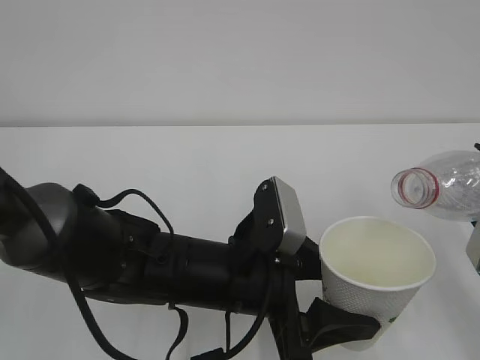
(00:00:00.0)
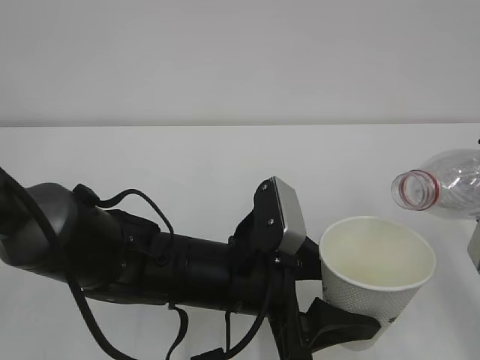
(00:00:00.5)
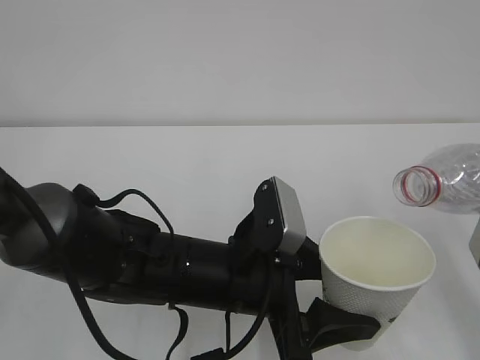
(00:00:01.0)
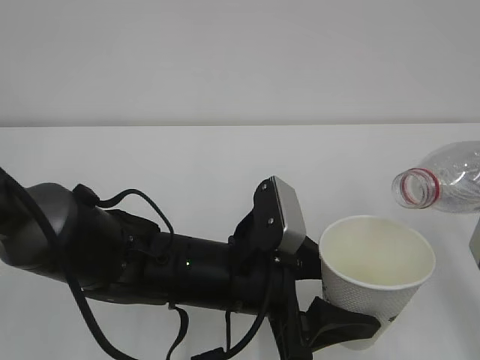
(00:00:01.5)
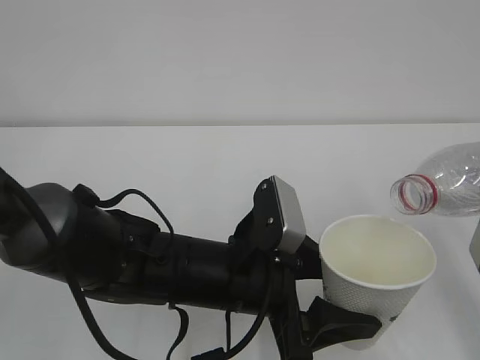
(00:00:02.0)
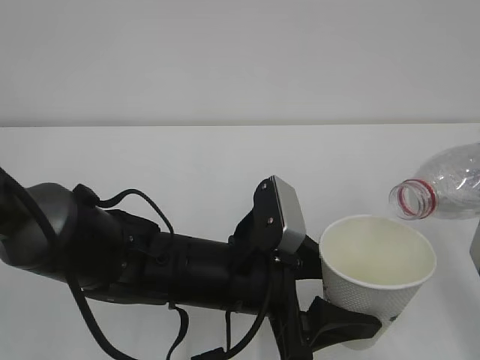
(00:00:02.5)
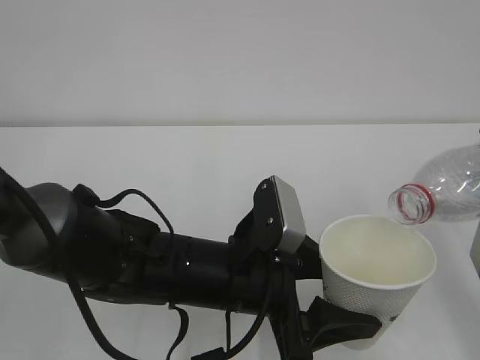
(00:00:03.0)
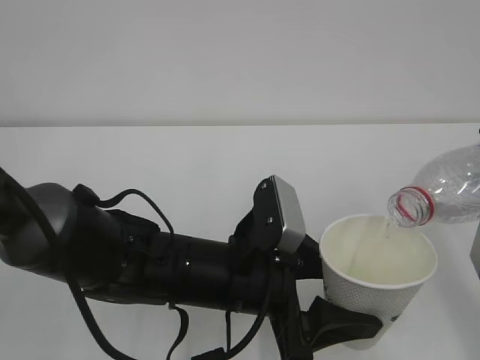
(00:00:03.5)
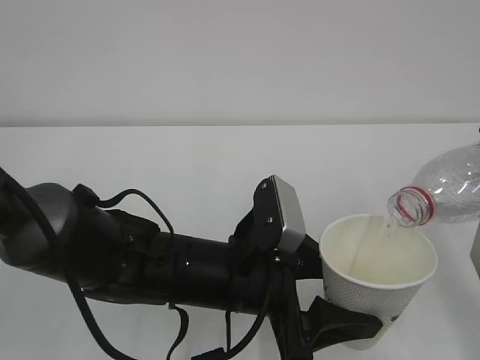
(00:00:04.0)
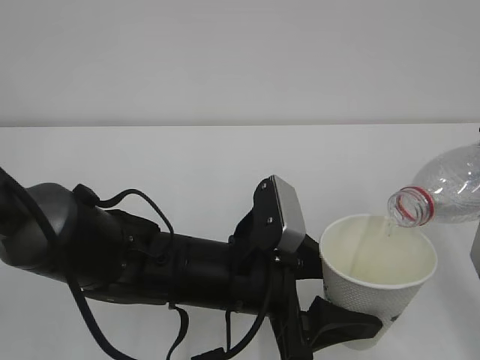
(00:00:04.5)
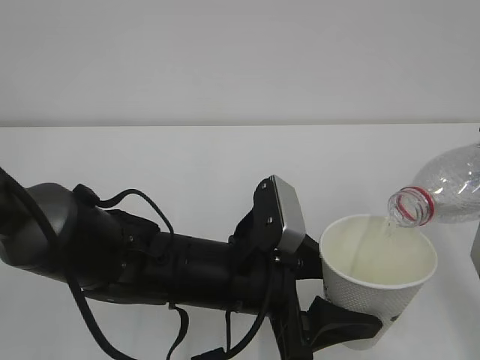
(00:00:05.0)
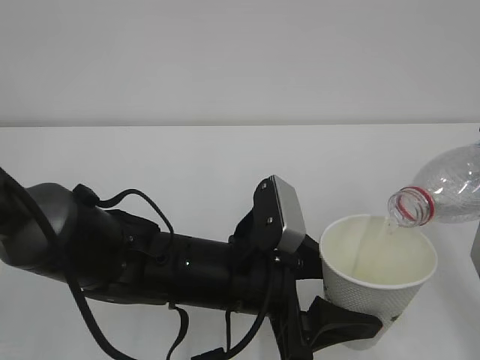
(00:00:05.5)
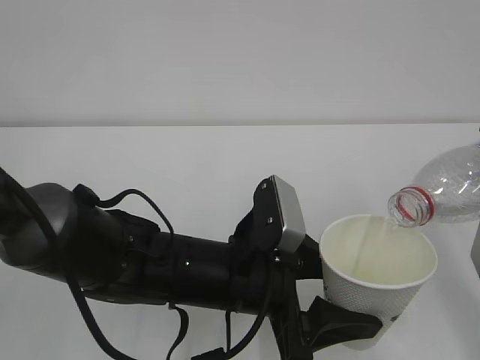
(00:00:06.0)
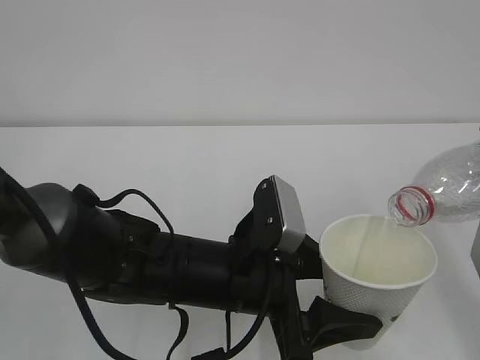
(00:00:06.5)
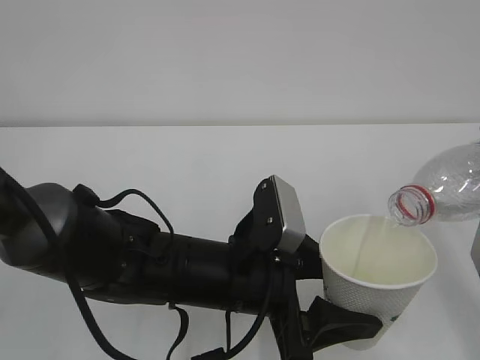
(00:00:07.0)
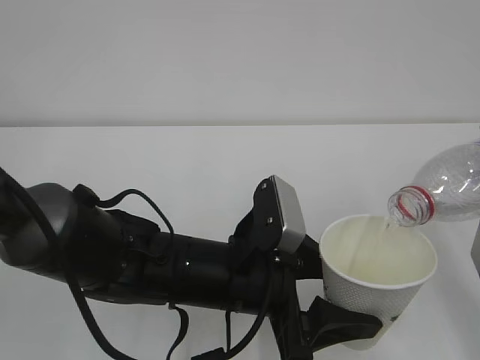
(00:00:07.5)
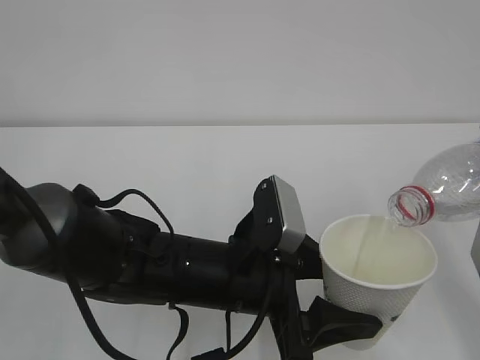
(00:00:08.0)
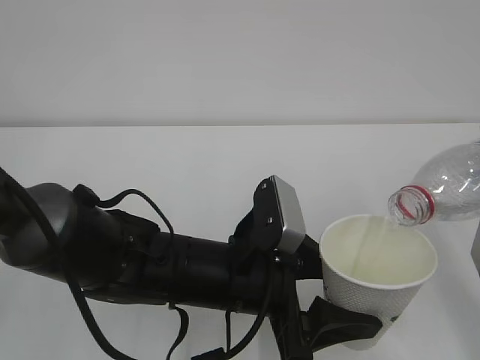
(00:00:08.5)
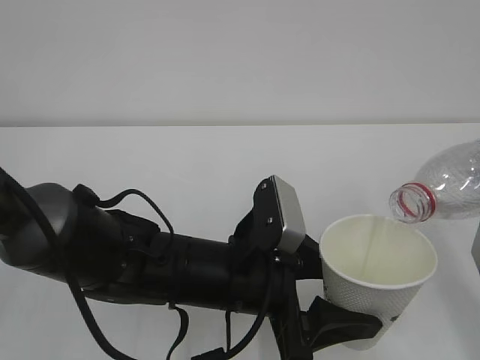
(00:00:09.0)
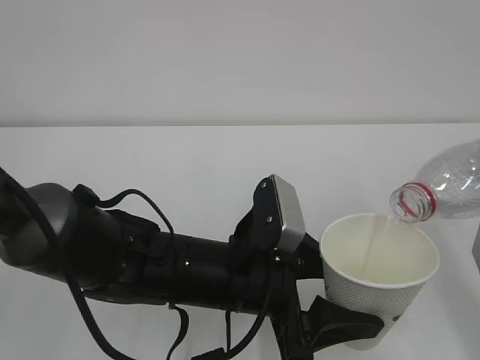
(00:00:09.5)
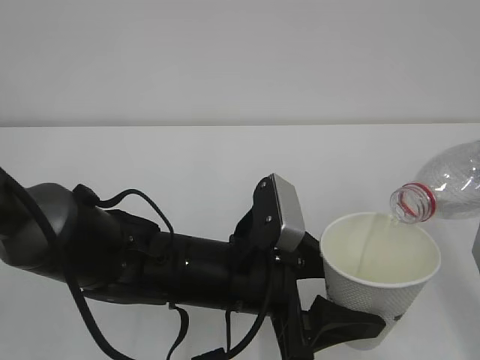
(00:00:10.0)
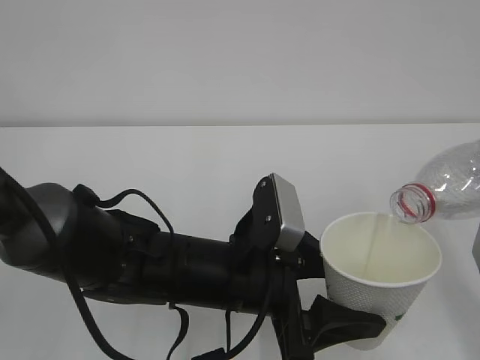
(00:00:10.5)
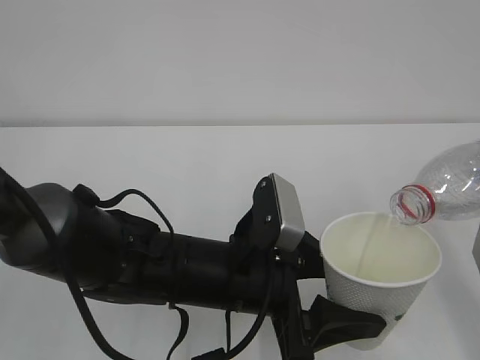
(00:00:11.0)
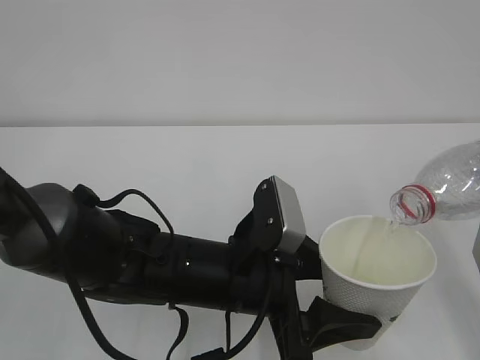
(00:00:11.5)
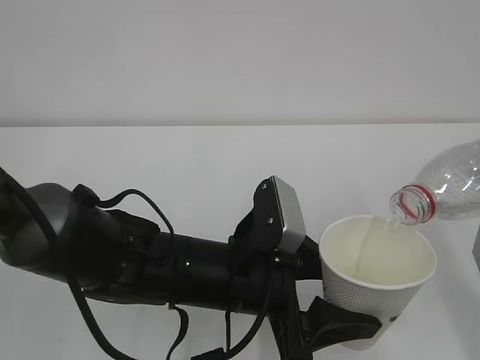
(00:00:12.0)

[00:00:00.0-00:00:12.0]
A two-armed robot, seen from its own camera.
00:00:00.0 to 00:00:04.0: The grippers stay close to where they were, moving slightly.
00:00:04.0 to 00:00:12.0: Both grippers stay put.

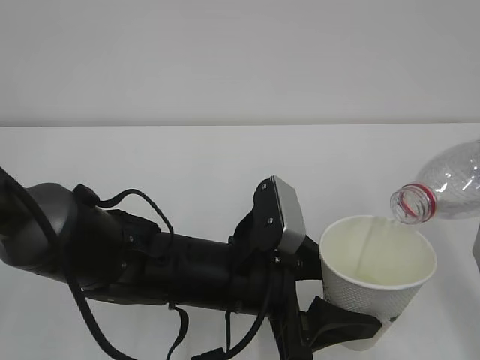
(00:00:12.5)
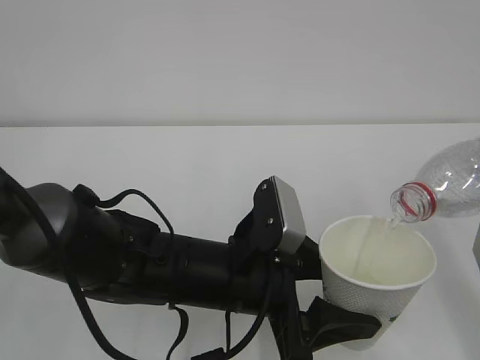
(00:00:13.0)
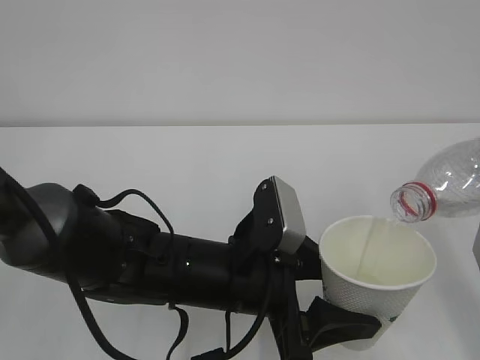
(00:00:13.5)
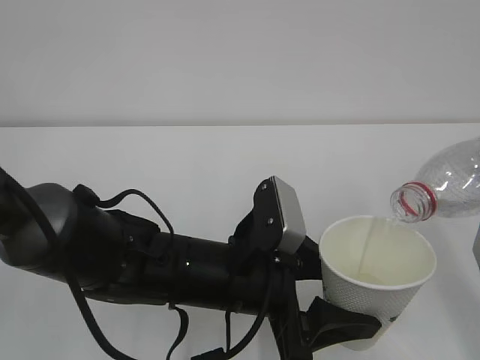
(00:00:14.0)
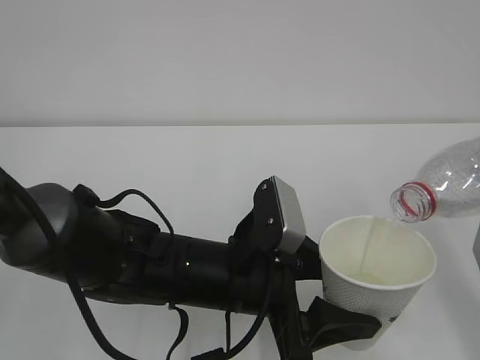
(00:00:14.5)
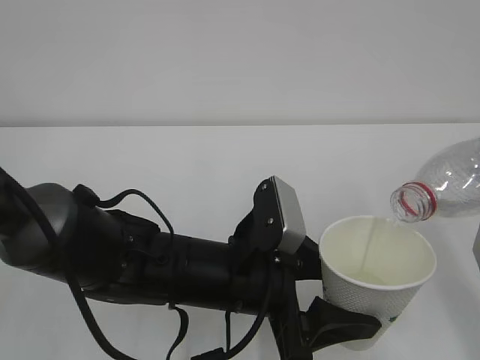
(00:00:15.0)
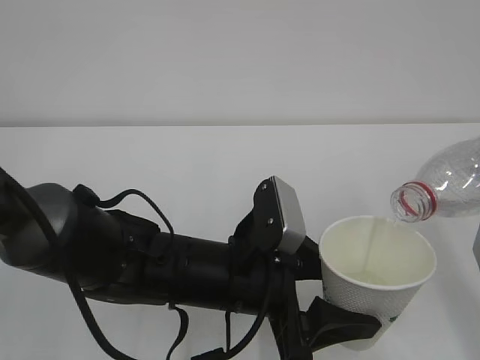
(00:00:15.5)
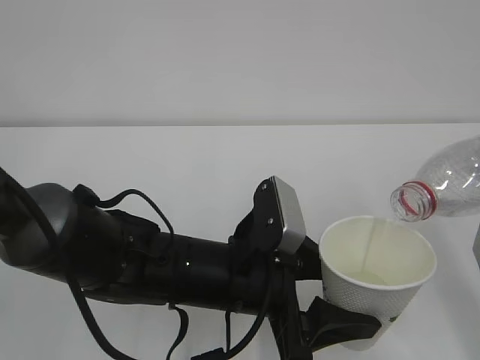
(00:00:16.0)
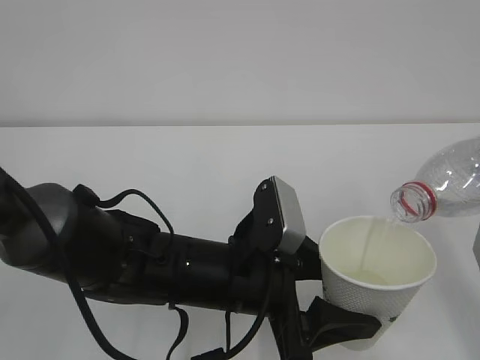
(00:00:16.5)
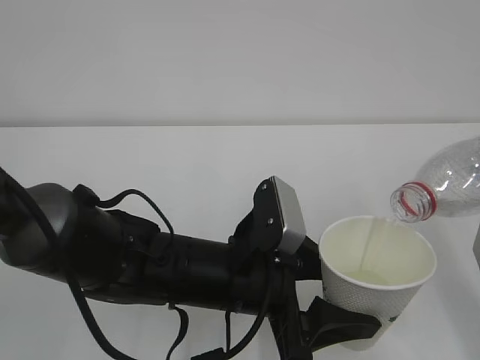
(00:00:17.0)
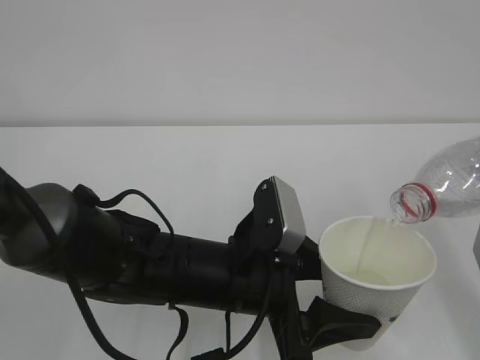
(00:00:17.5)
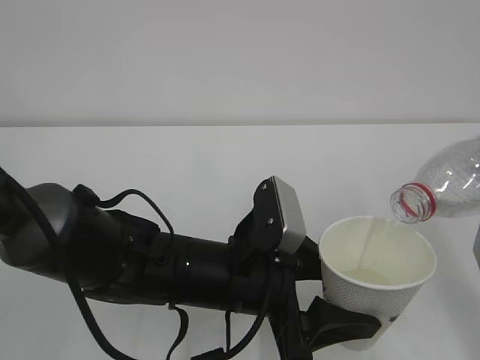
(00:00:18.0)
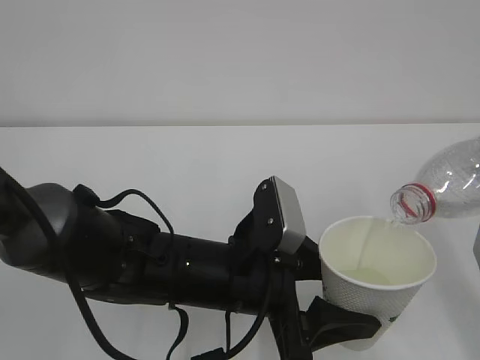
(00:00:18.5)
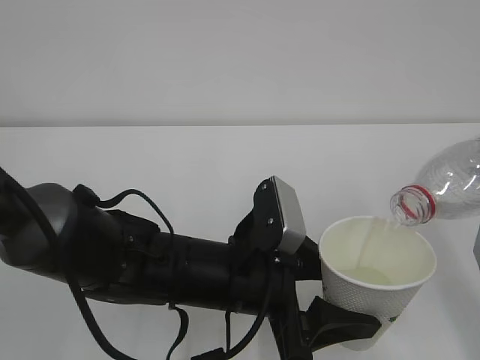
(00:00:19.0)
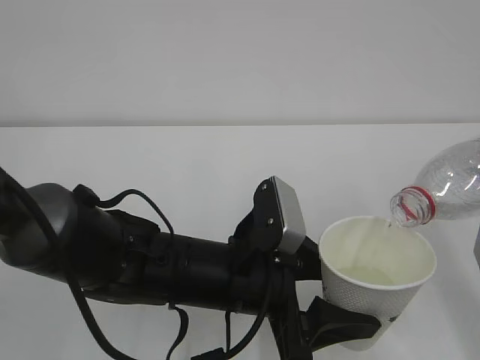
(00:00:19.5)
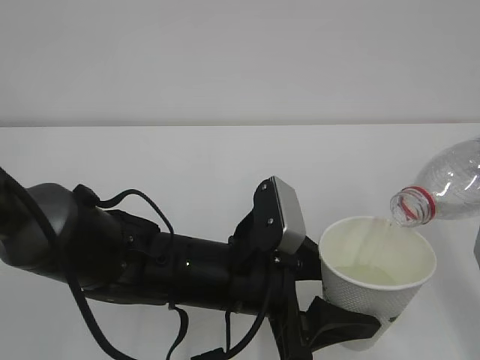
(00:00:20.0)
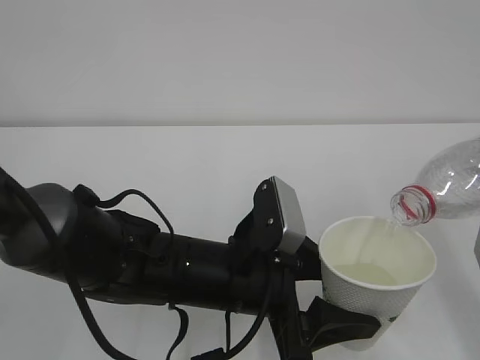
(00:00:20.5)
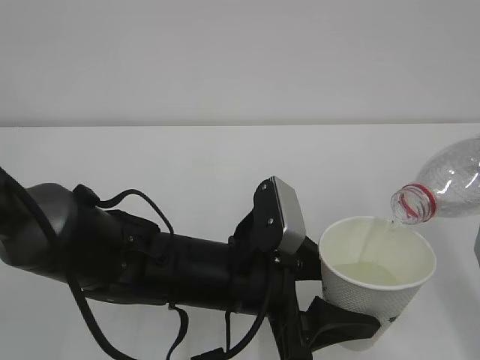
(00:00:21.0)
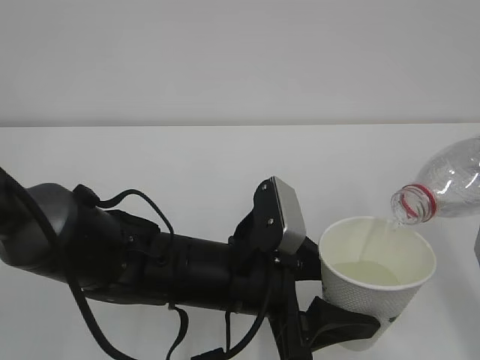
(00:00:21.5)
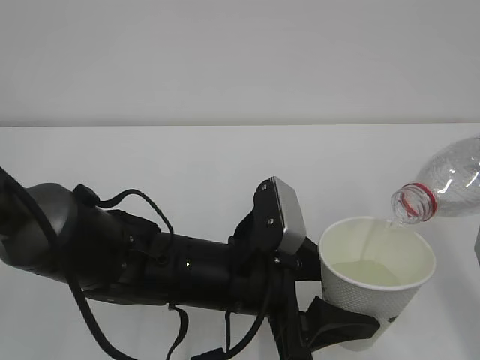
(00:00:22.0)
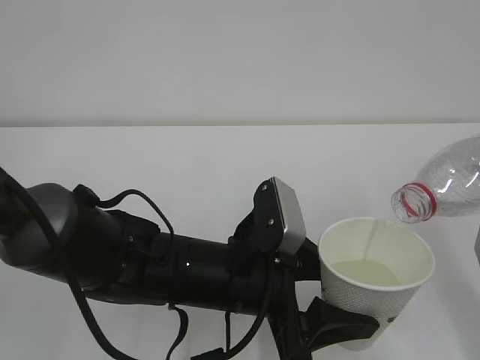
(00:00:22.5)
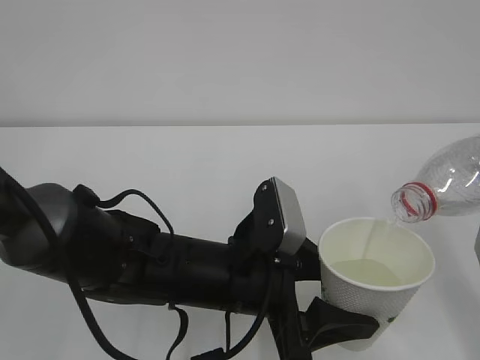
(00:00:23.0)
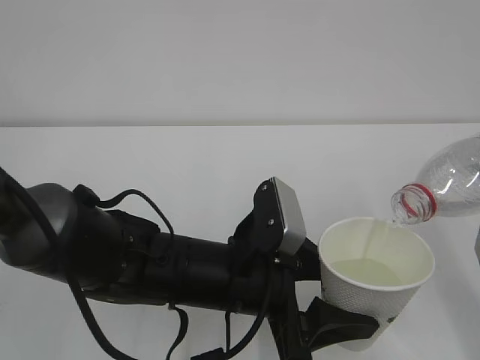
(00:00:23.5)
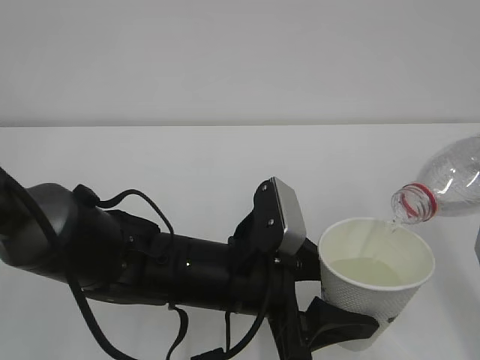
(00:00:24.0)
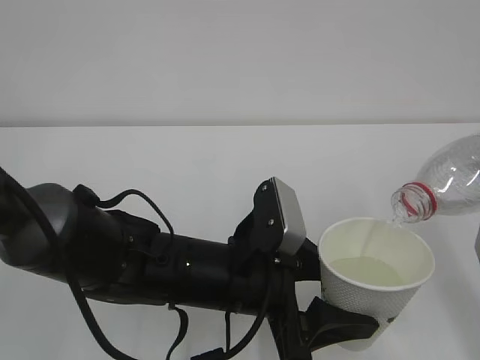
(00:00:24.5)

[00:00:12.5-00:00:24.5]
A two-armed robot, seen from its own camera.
00:00:12.5 to 00:00:24.5: Both grippers stay about where they are.

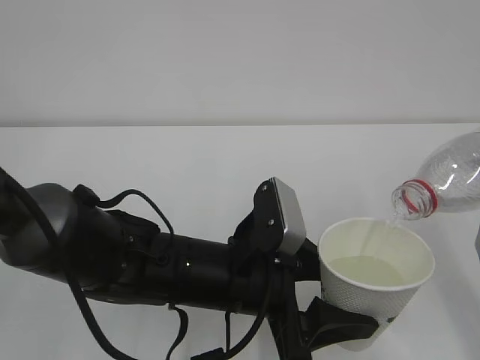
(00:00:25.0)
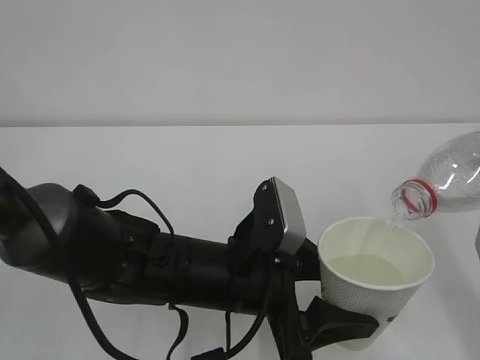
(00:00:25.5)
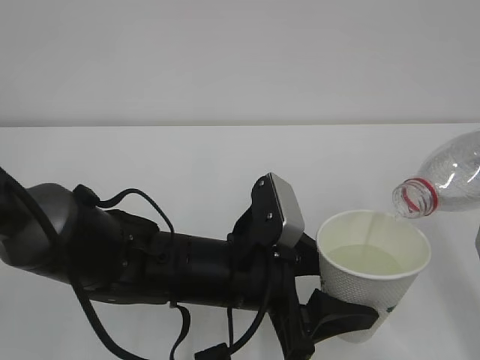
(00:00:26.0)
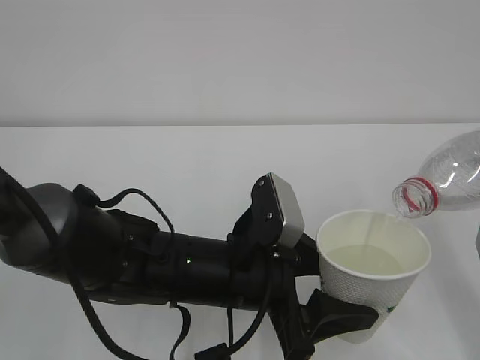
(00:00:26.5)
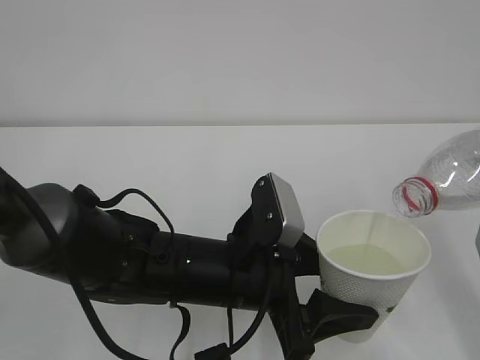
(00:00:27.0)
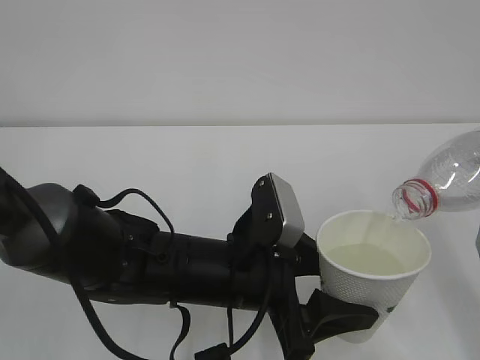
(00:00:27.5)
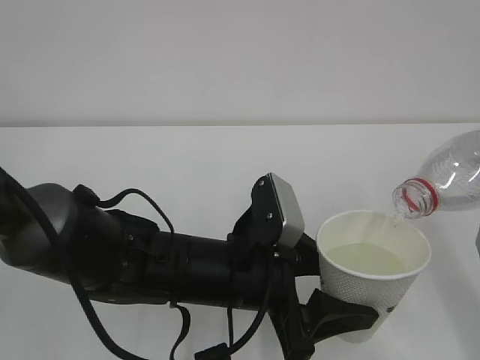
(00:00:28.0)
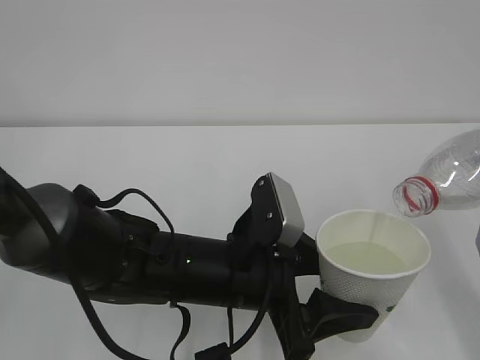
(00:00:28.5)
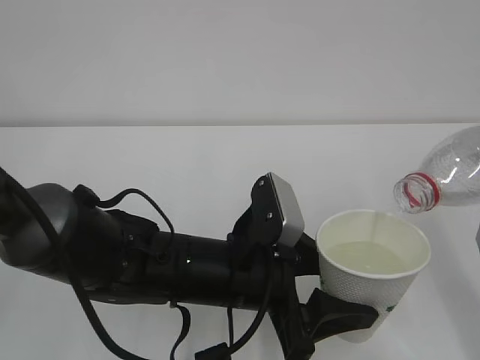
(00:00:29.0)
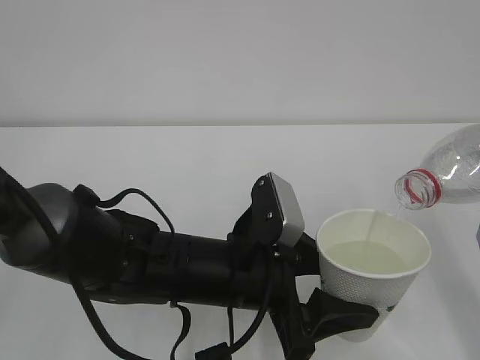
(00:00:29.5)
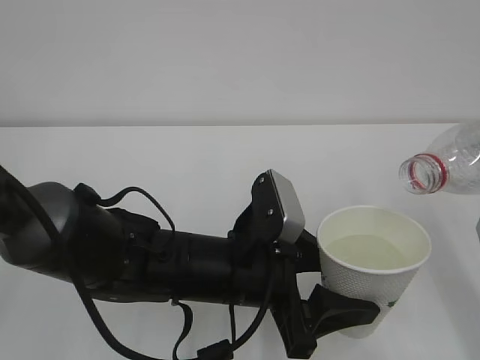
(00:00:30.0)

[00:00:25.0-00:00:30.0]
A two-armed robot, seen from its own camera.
00:00:25.0 to 00:00:27.5: Both grippers stay about where they are.
00:00:27.5 to 00:00:30.0: The grippers stay close to where they were, moving slightly.
